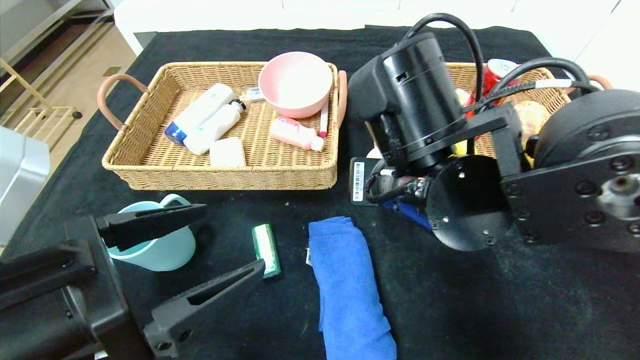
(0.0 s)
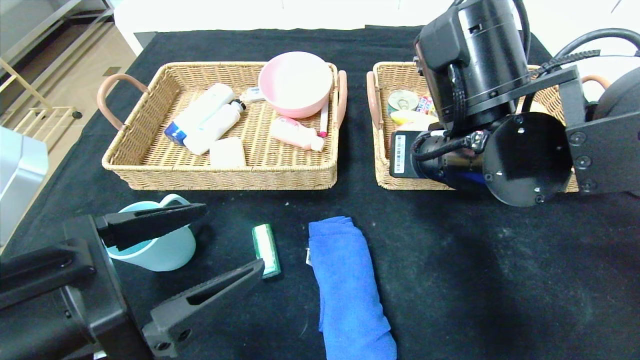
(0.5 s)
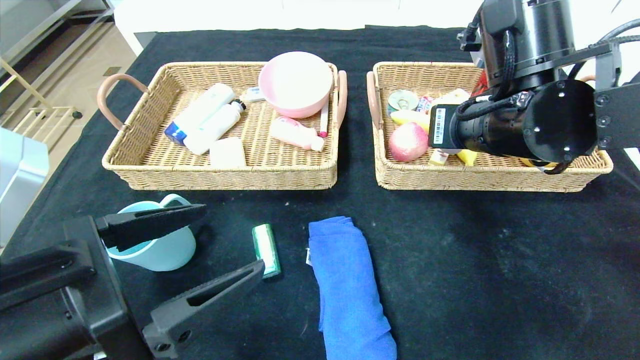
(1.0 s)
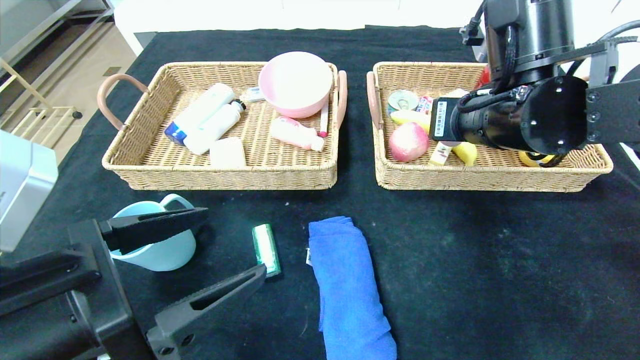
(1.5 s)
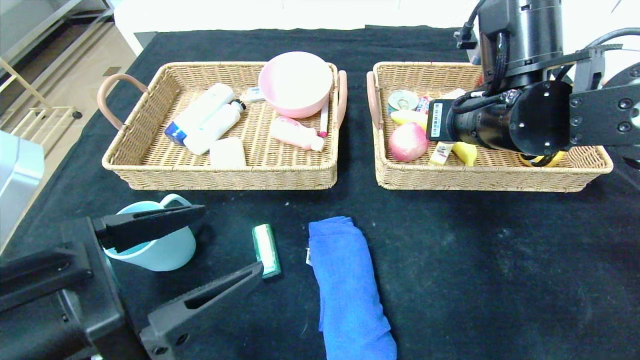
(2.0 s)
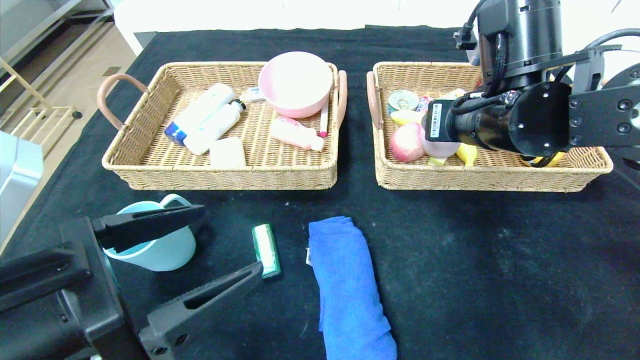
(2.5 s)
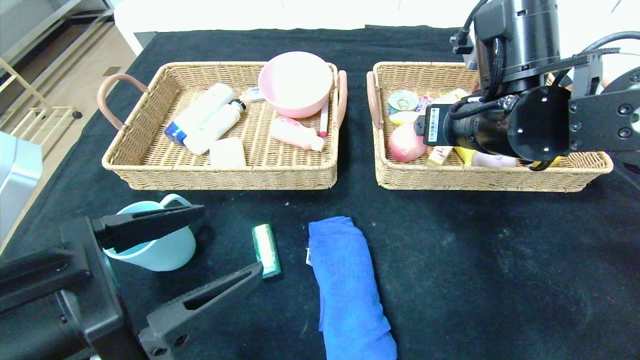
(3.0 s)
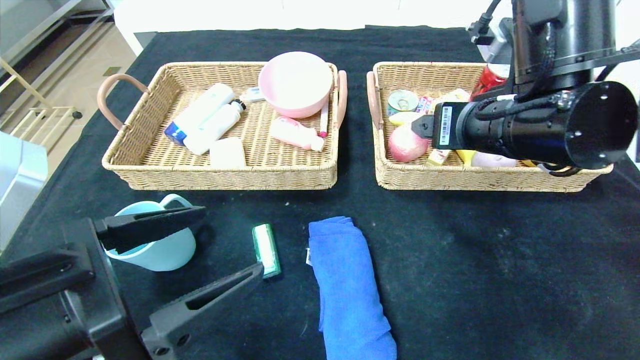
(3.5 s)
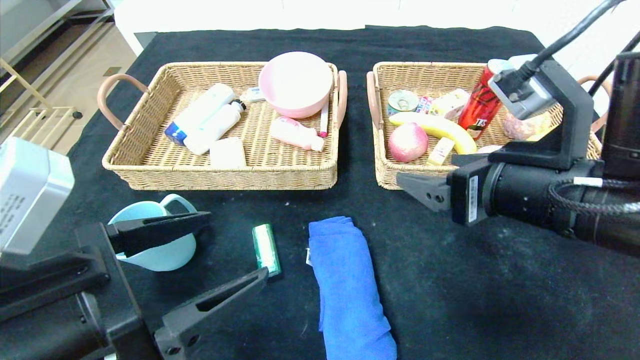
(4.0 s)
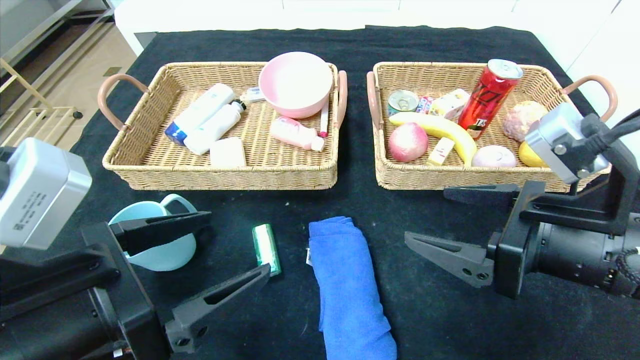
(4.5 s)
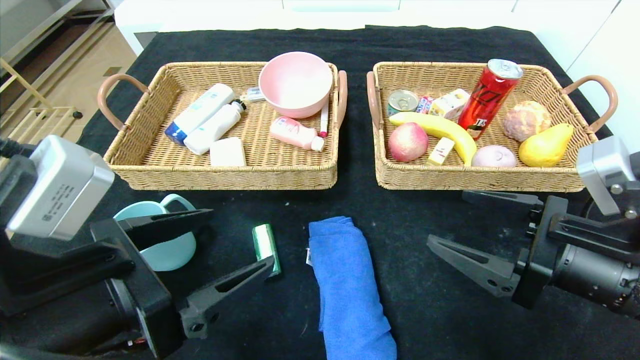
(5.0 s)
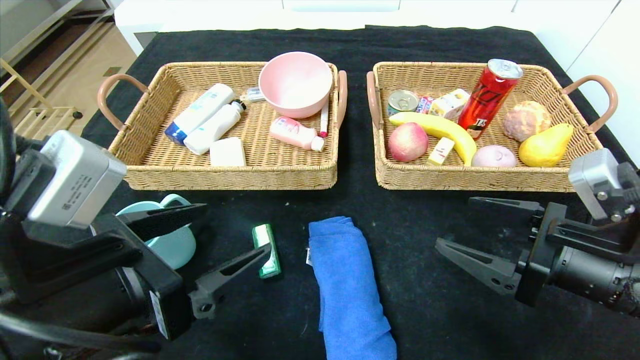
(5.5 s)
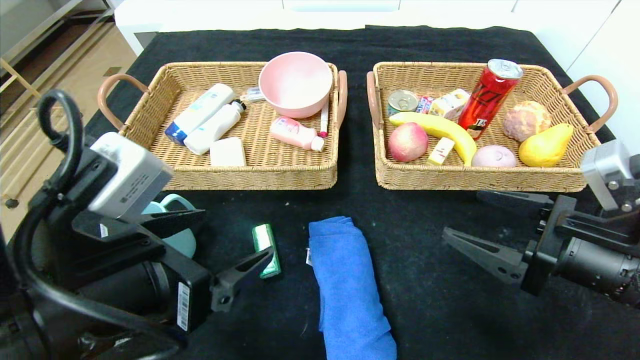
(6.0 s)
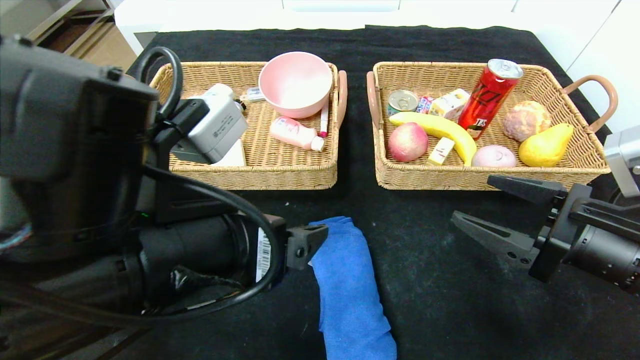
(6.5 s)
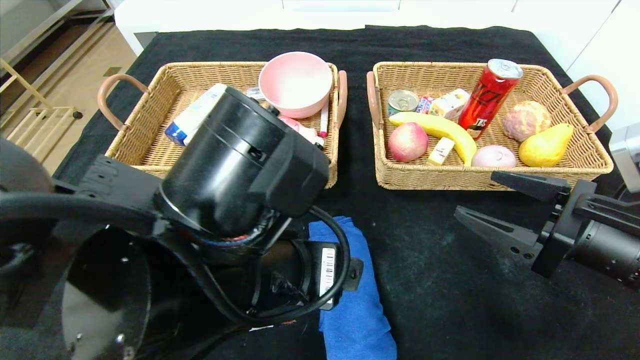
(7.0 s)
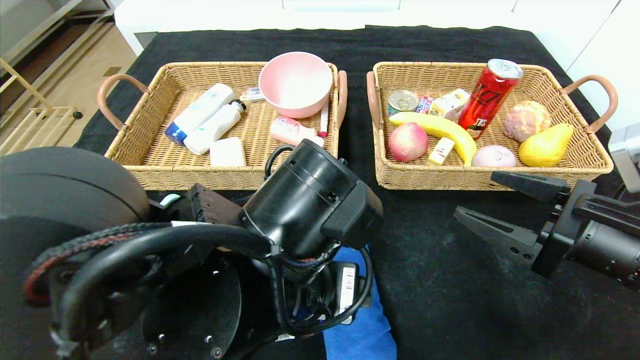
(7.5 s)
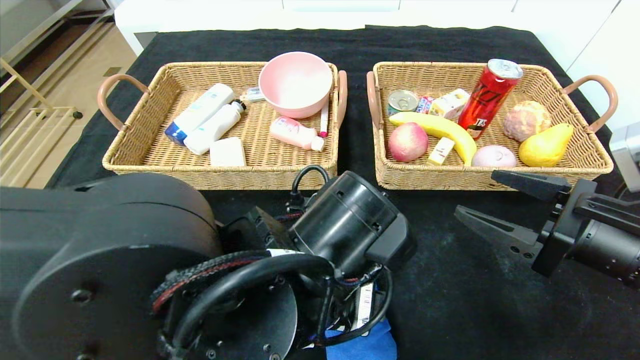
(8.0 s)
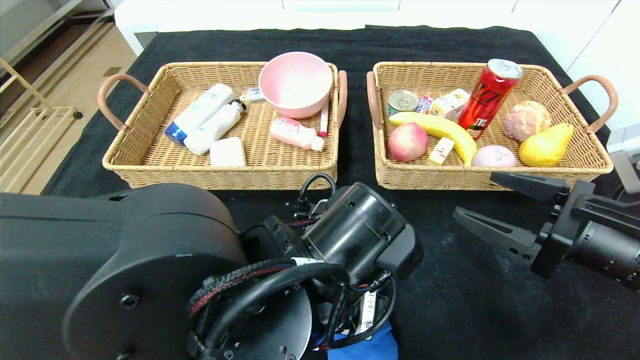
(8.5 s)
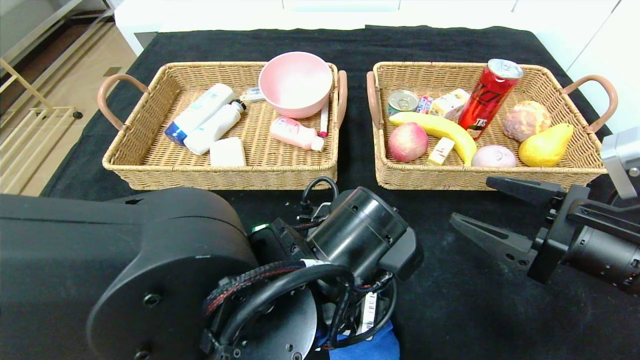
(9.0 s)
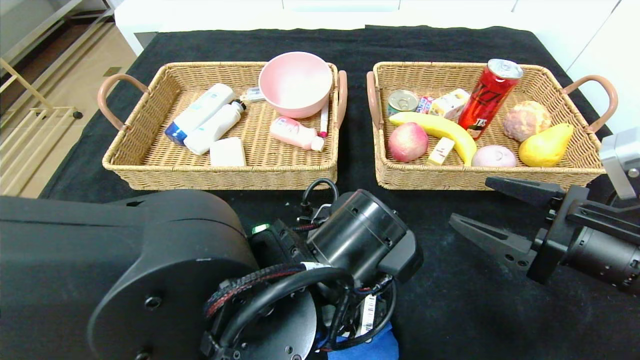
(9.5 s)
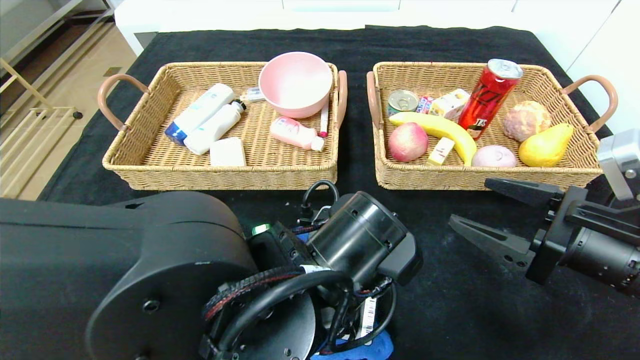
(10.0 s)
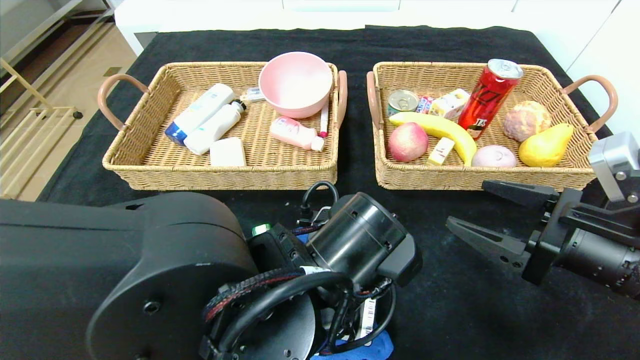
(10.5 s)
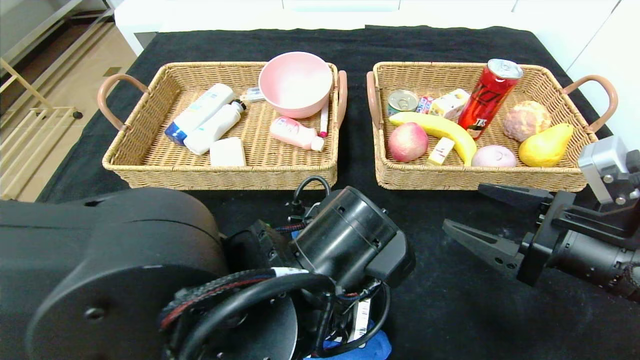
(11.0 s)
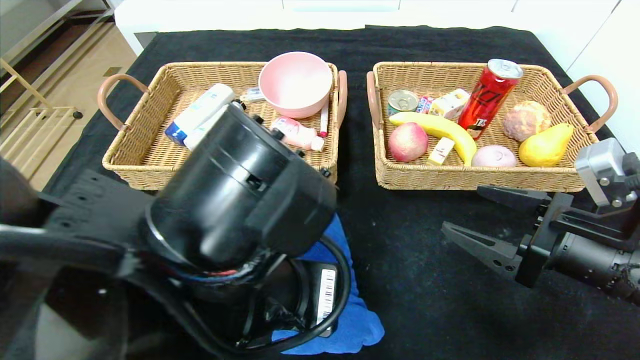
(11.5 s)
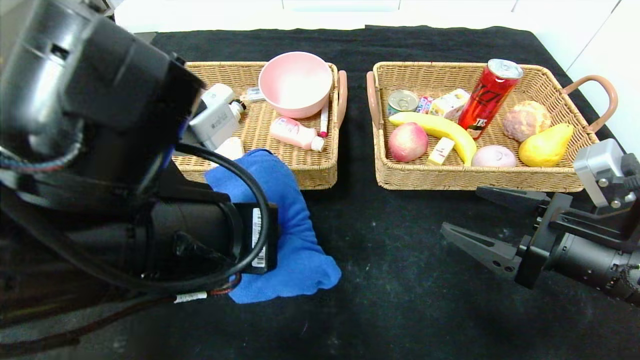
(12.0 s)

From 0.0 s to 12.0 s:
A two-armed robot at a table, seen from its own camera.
Step, from 0.0 s to 2.5 s: Grasp the peach and put it in the right basket.
From 0.0 s to 2.0 s: The right gripper moves to the right and forward, some 10 cm.
From 2.0 s to 4.0 s: The right gripper heads backward, covering about 10 cm, and opens up.
From 4.0 s to 6.0 s: The right gripper heads to the right and downward, covering about 10 cm.
From 6.0 s to 8.0 s: The left gripper travels to the right by roughly 15 cm.
From 8.0 s to 10.0 s: The left gripper closes its fingers.
From 10.0 s to 12.0 s: The left gripper is displaced upward and to the left by about 15 cm.

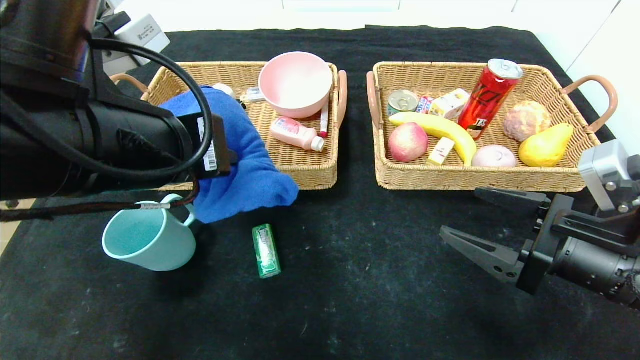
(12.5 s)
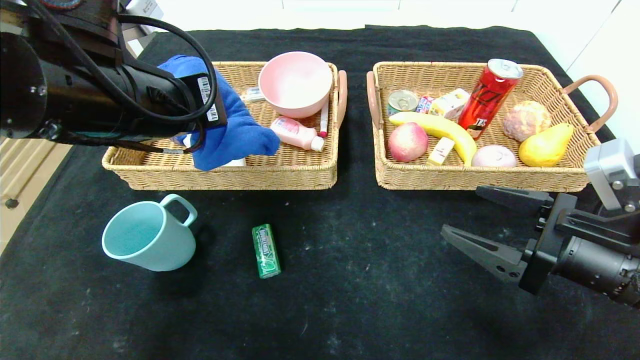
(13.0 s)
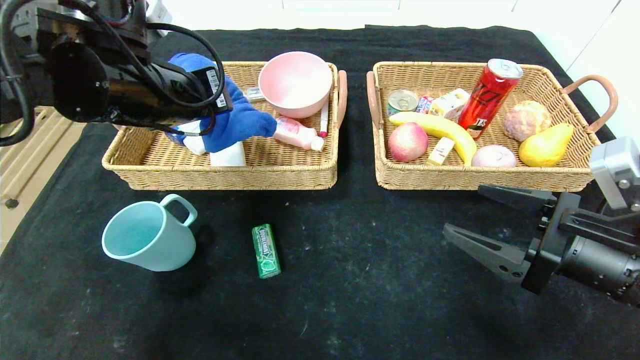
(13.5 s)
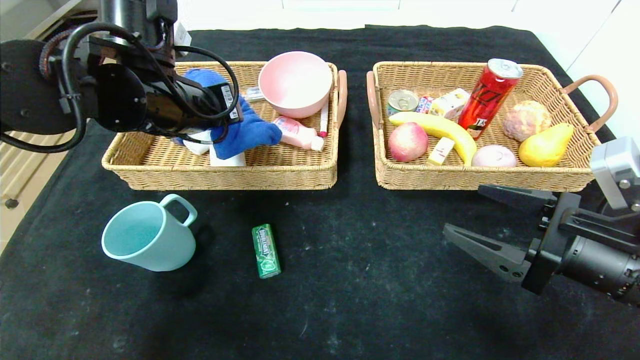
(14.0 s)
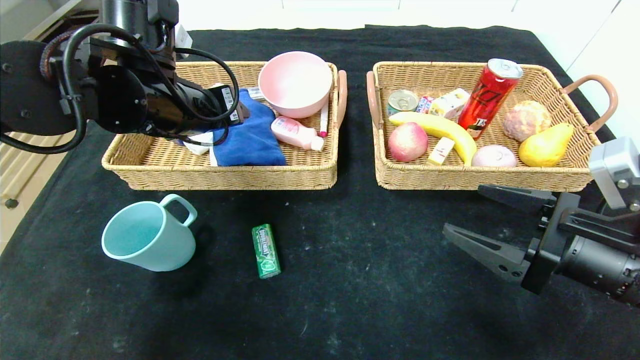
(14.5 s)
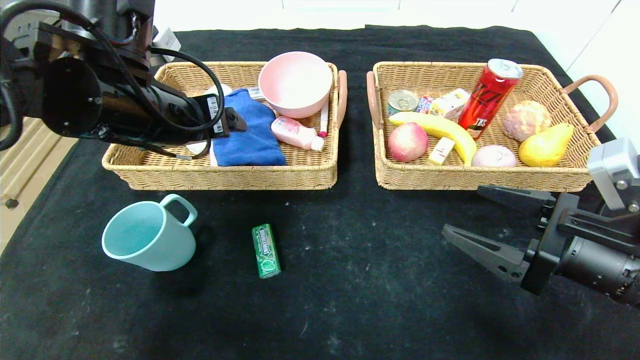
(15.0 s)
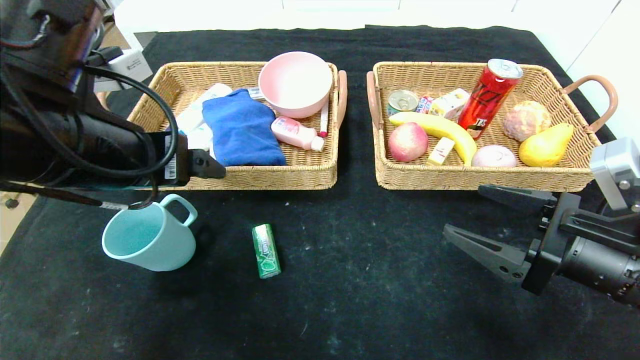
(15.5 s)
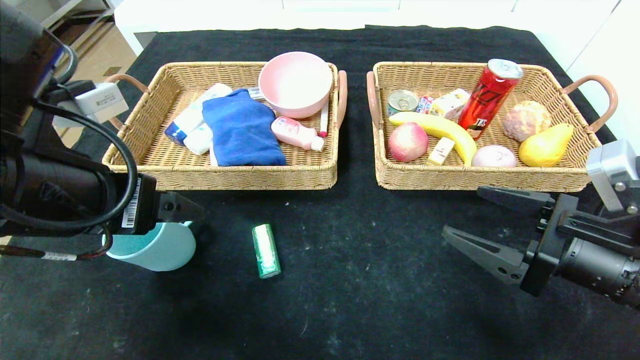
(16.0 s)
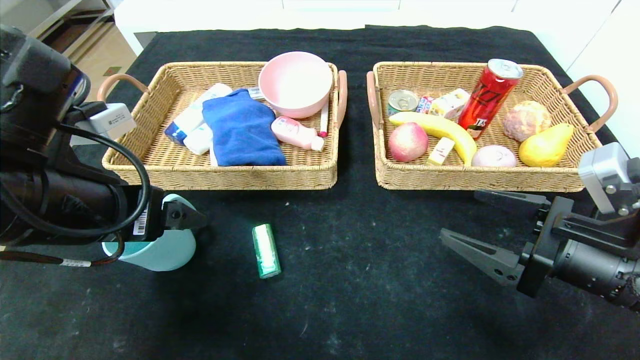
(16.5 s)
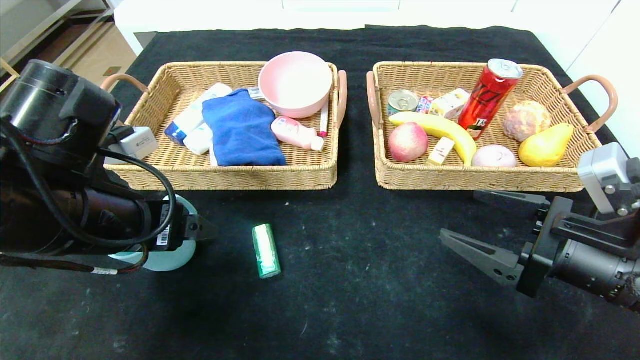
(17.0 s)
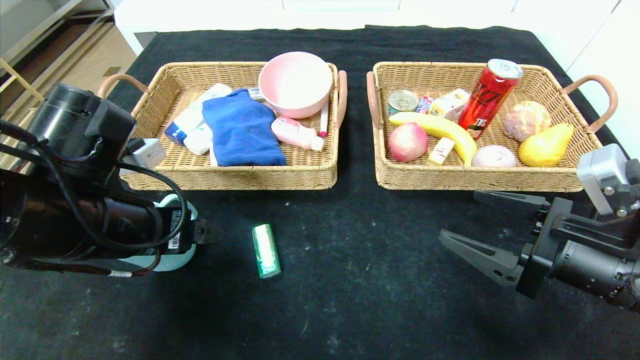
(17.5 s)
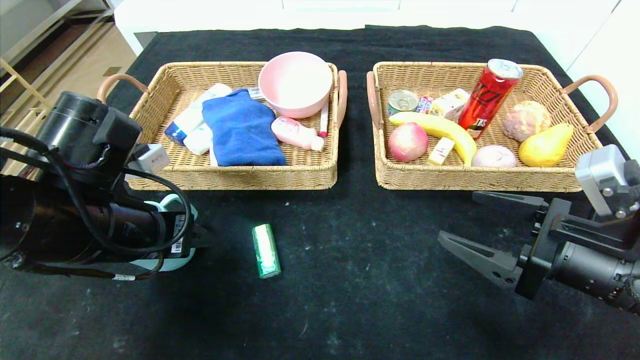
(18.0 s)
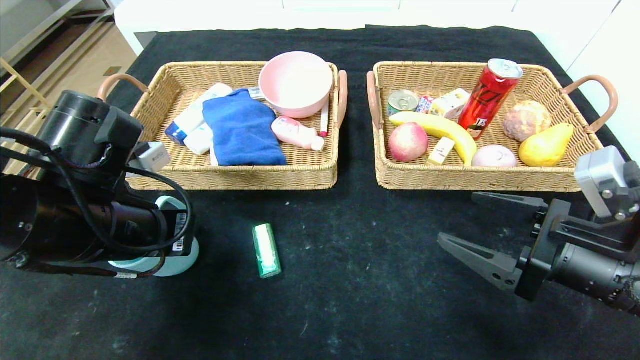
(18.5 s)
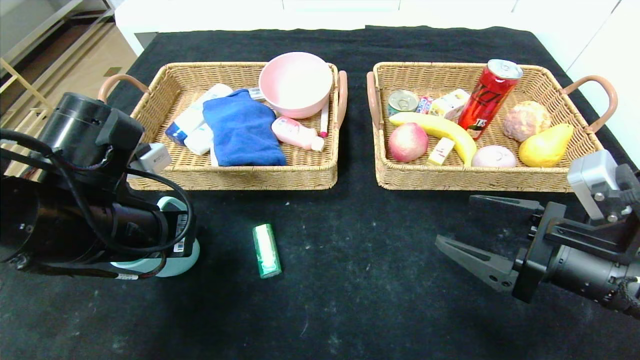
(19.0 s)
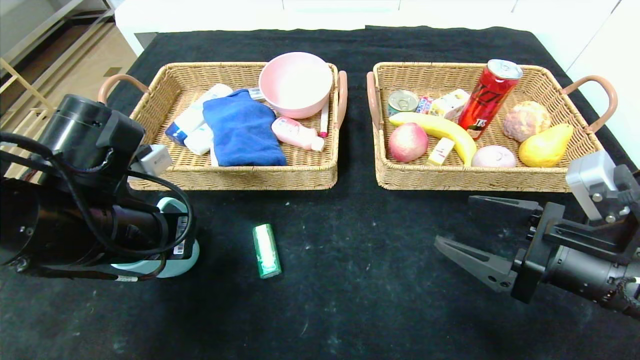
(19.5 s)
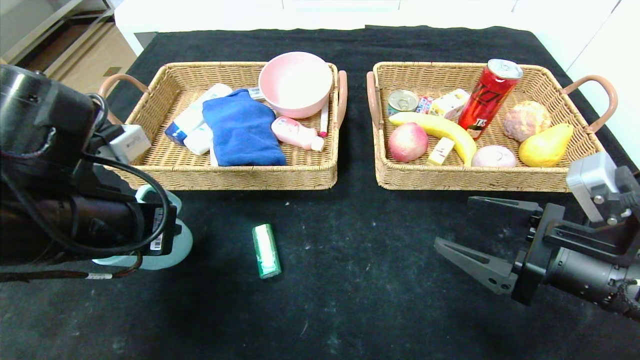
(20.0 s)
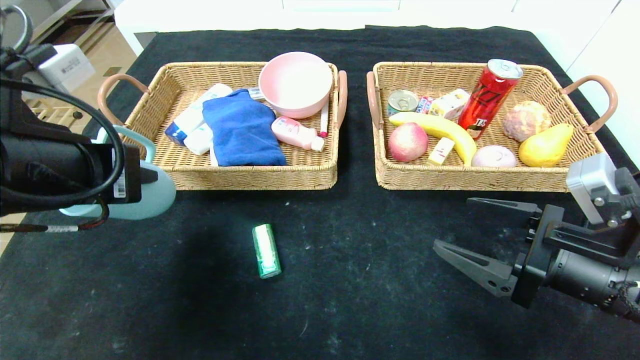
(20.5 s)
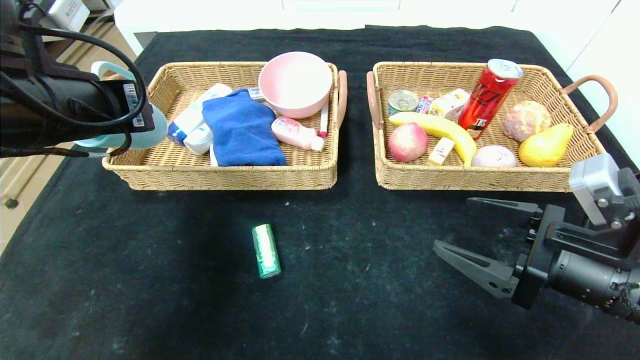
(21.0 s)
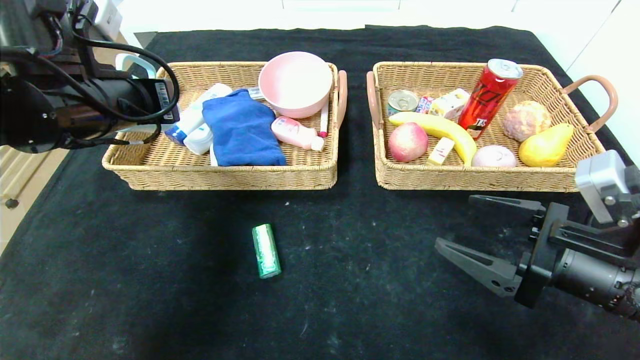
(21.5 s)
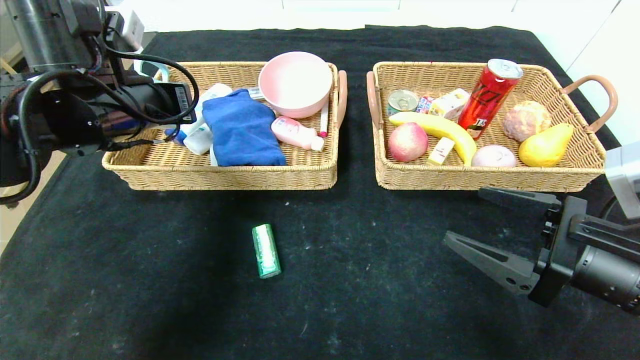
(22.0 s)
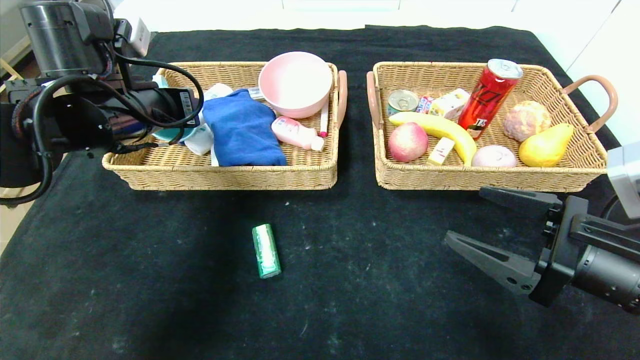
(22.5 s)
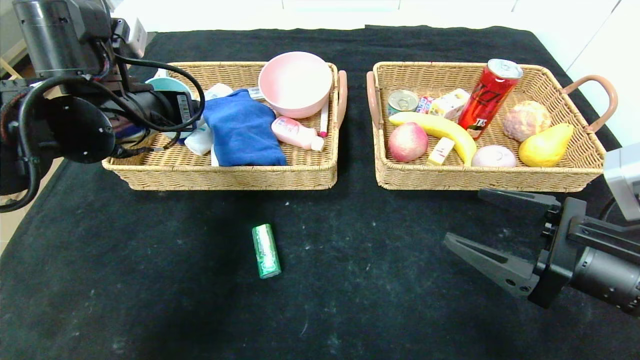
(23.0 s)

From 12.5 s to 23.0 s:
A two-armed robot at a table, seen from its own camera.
Step, from 12.5 s to 14.5 s: Grasp the blue towel and put it in the left basket.
From 12.5 s to 14.5 s: The left gripper shifts about 15 cm forward, and opens its fingers.
From 14.5 s to 16.5 s: The left gripper heads backward, covering approximately 15 cm.
From 16.5 s to 19.0 s: The left gripper moves approximately 5 cm, and closes.
From 19.0 s to 21.0 s: The left gripper moves upward, about 10 cm.
From 21.0 s to 23.0 s: The left gripper heads forward, covering some 5 cm, and opens.
